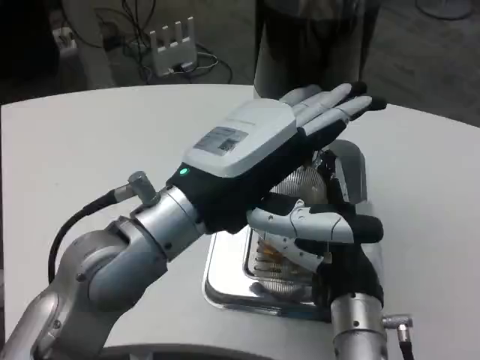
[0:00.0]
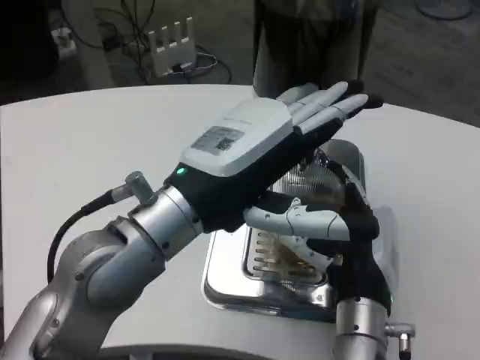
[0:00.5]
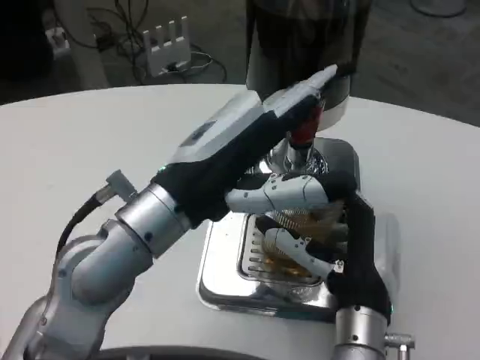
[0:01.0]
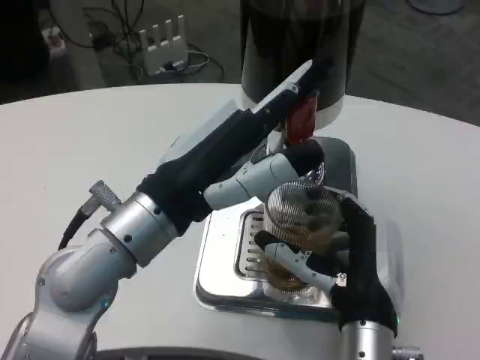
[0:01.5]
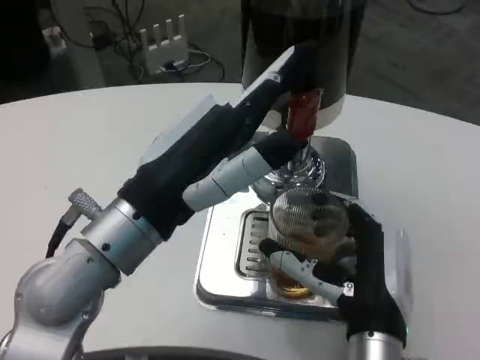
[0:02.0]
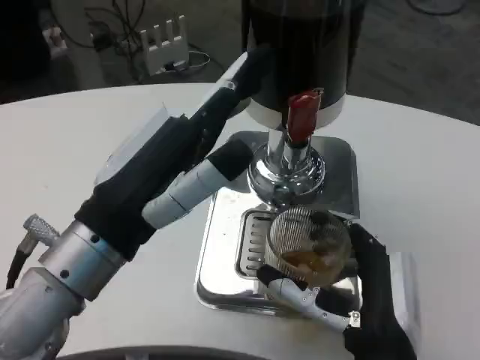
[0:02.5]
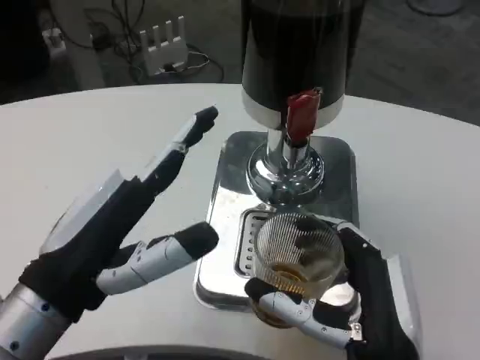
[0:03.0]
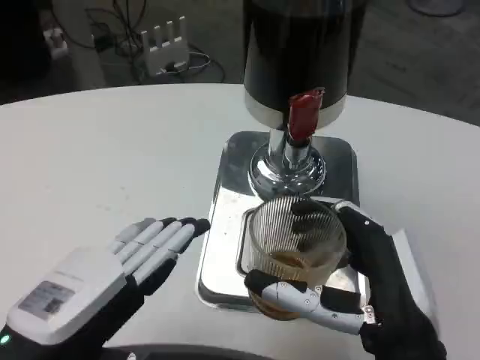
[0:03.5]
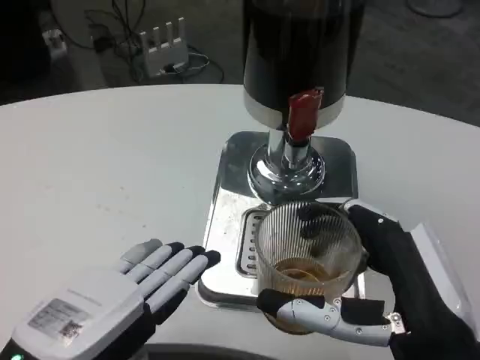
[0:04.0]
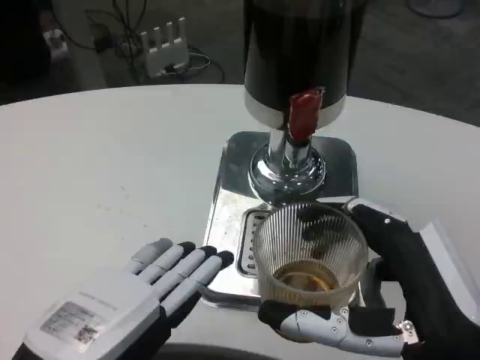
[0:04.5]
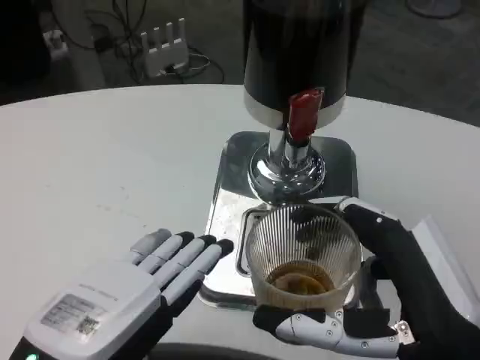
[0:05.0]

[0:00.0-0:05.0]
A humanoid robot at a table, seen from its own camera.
Task of the whole recording: Grasp the cup under the faucet to collect the drink, then remove the cup.
0.0 to 2.5 s: The right hand heads backward, covering about 5 cm, while the left hand heads to the left, covering roughly 5 cm.
2.5 to 5.0 s: The left hand heads backward, covering about 10 cm, while the right hand goes some 15 cm upward, backward and to the right.

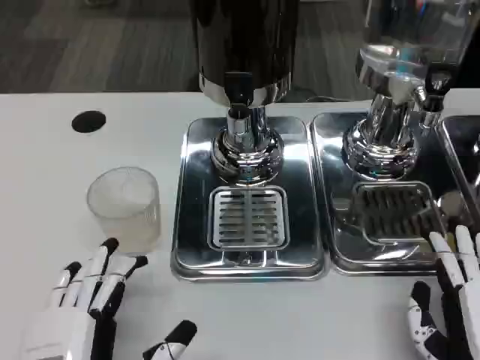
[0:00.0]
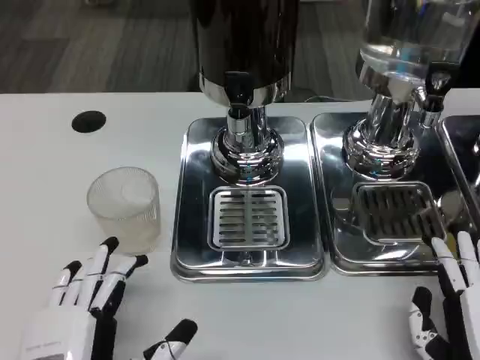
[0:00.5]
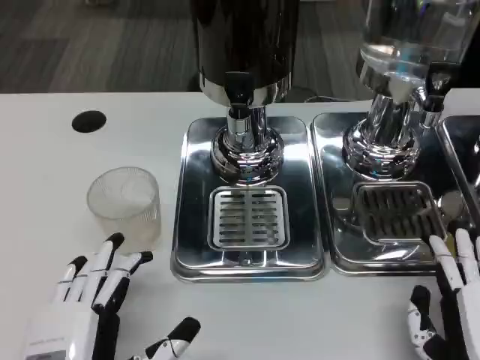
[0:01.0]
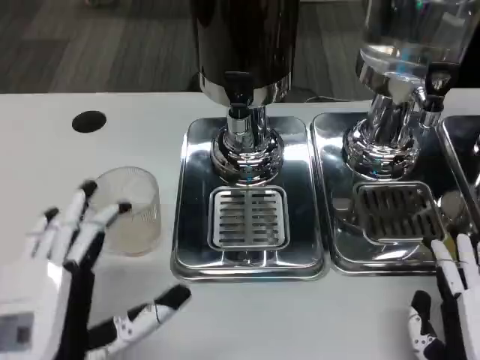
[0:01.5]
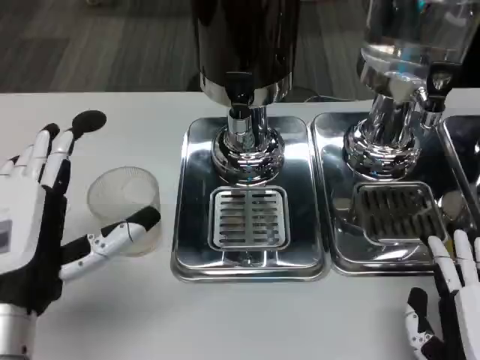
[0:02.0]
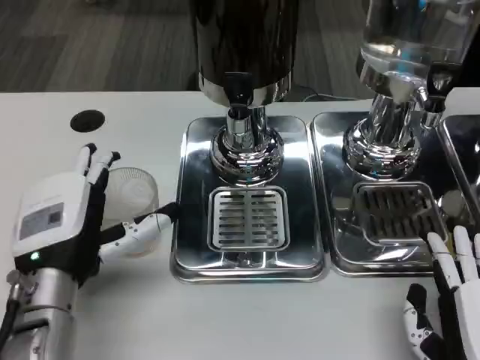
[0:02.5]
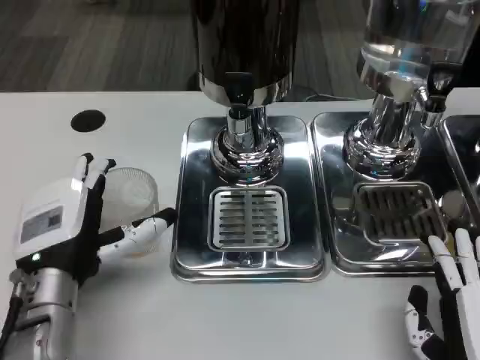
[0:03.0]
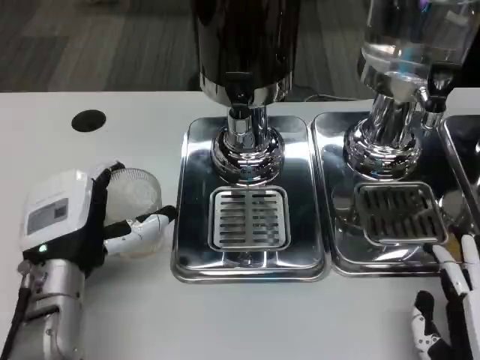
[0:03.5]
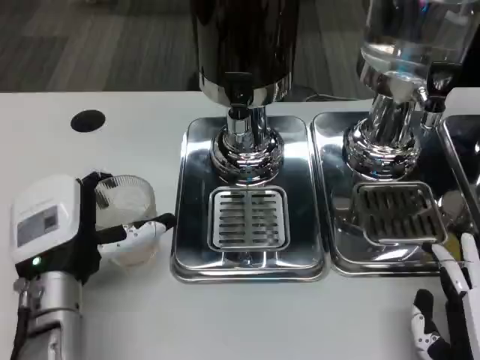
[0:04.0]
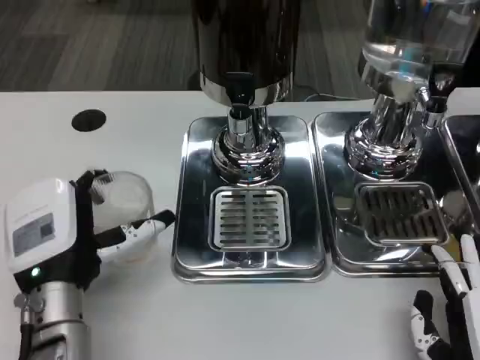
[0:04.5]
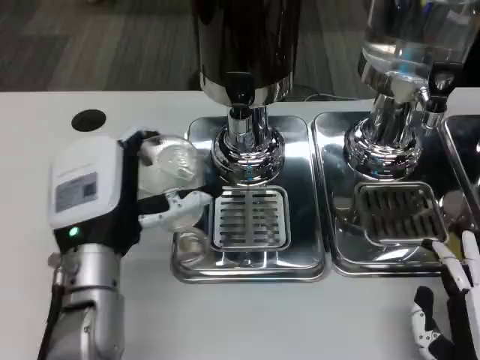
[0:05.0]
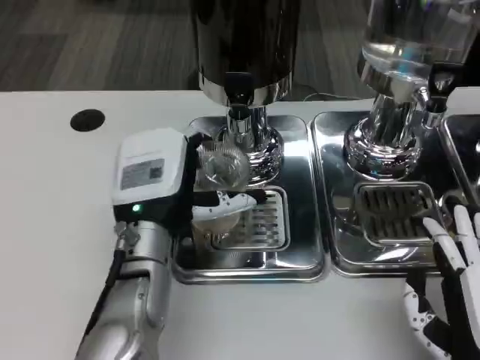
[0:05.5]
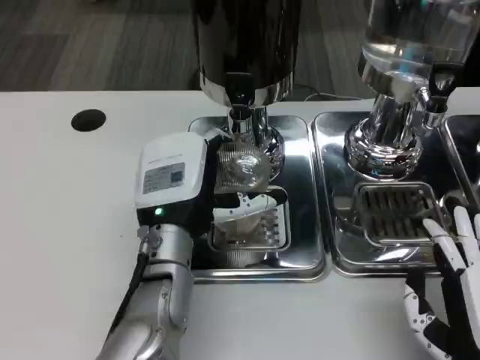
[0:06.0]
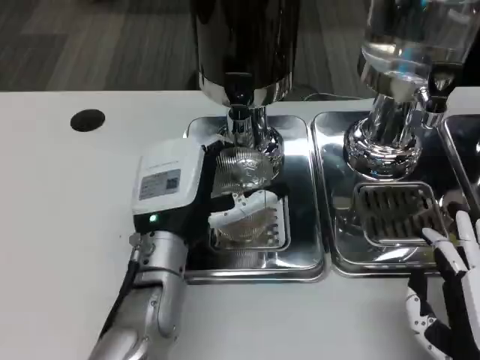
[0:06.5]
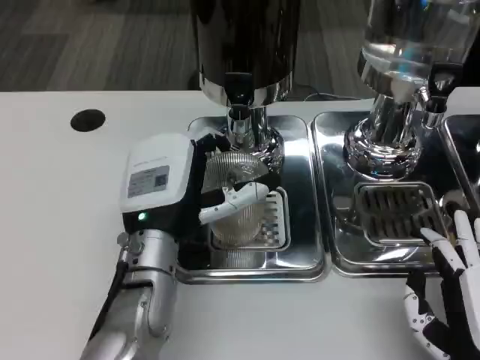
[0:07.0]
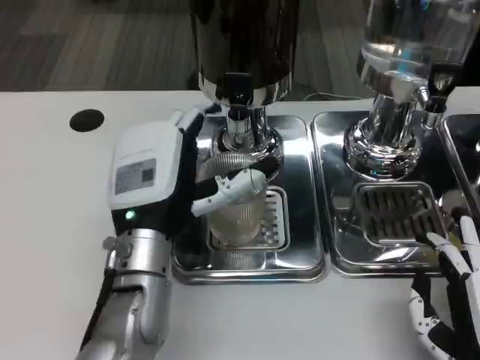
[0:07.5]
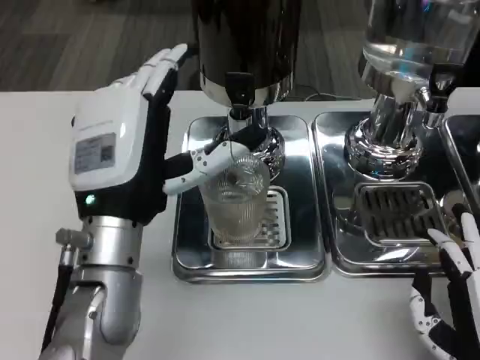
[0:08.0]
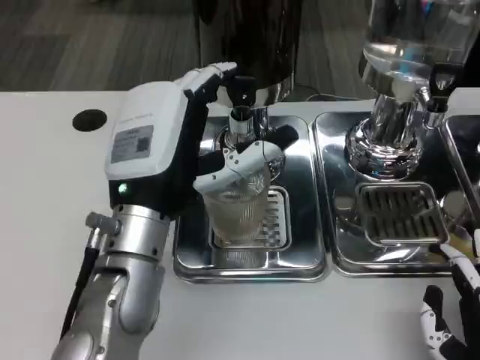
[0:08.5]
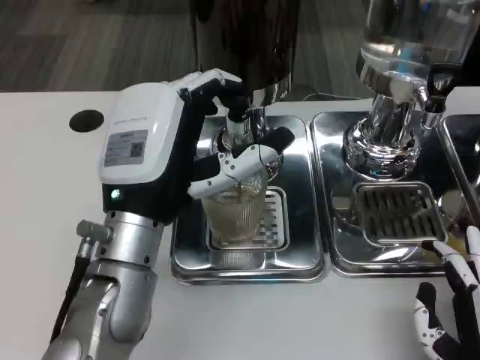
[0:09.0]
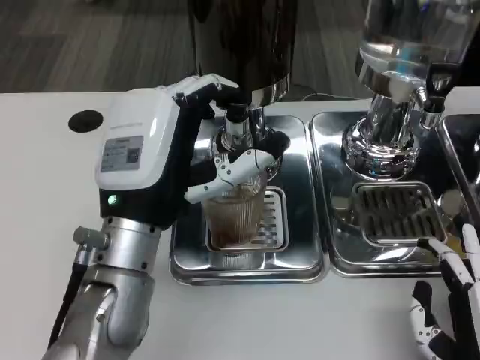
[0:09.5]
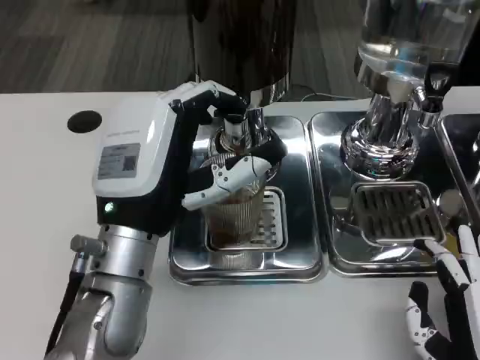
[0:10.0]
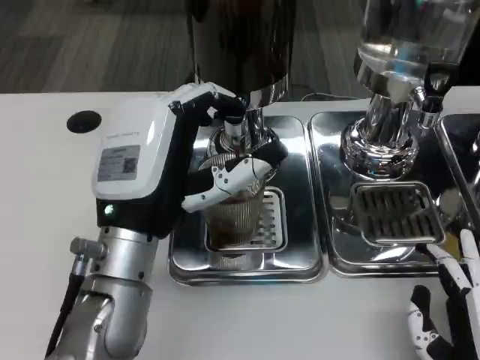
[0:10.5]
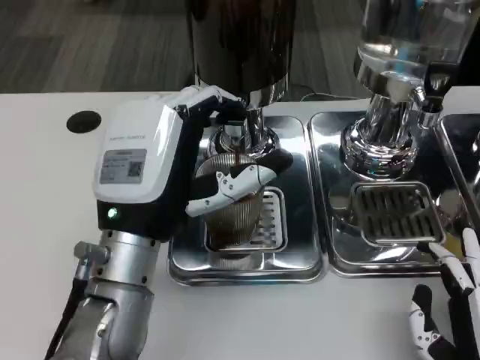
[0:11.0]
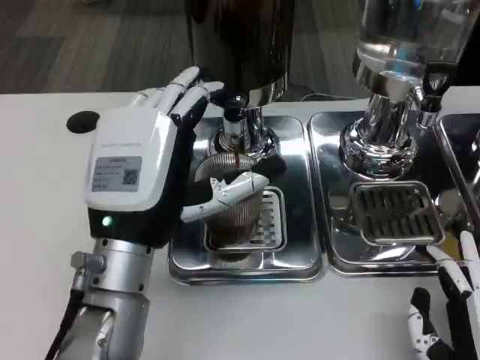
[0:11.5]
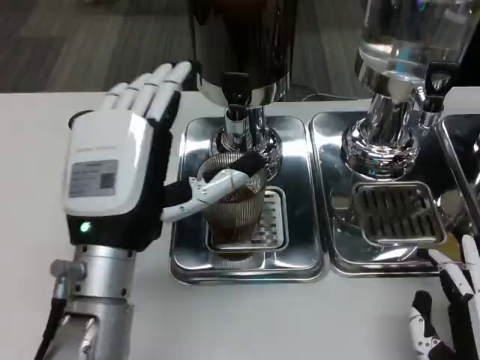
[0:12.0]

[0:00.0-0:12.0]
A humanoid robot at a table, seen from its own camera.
Task of the whole recording: Grasp the cup under the faucet to collect the drink, then remove the cup.
0.0 to 2.0 s: The left hand goes about 10 cm upward and forward.
2.0 to 4.0 s: The left hand goes approximately 5 cm forward.
4.0 to 6.0 s: The left hand shifts approximately 10 cm to the right.
6.0 to 8.0 s: The left hand goes roughly 5 cm upward.

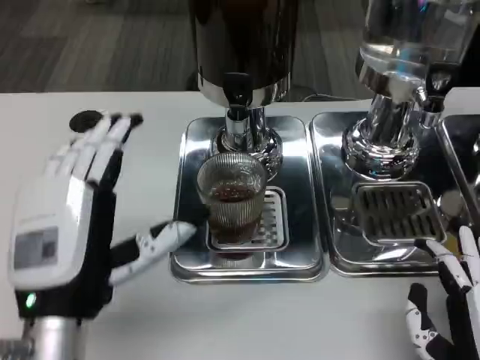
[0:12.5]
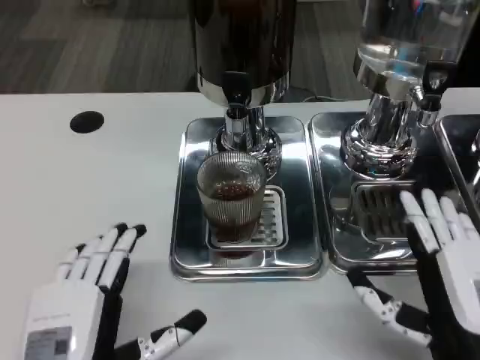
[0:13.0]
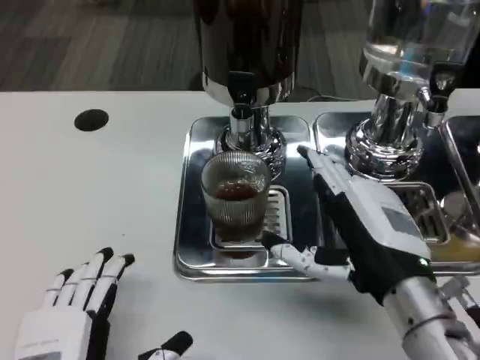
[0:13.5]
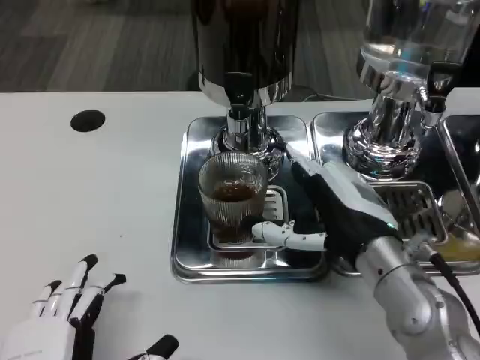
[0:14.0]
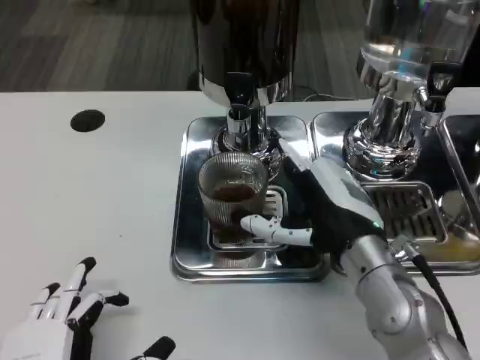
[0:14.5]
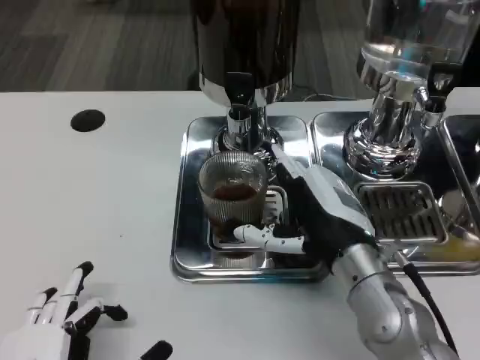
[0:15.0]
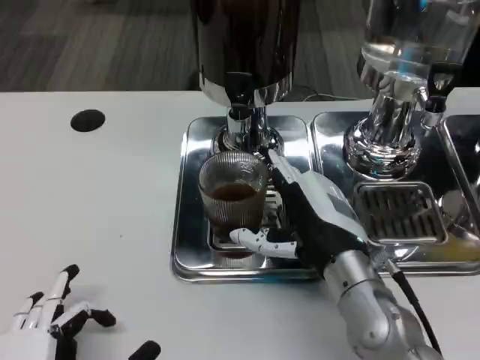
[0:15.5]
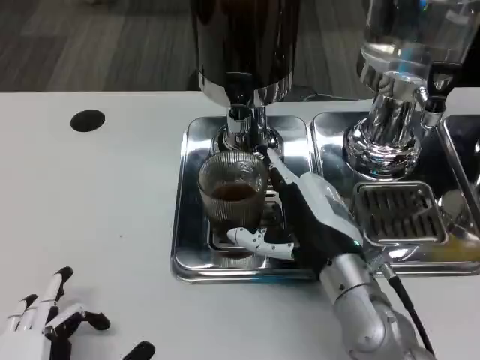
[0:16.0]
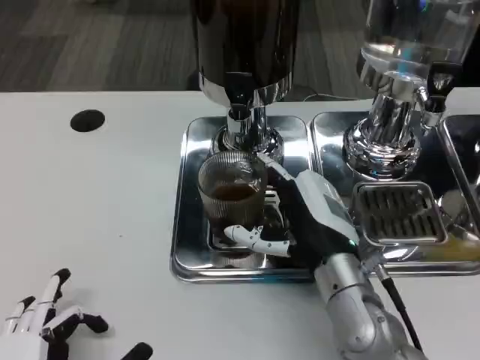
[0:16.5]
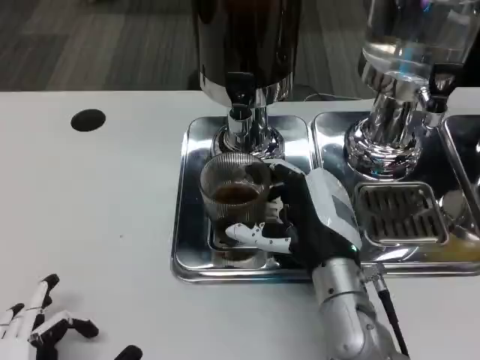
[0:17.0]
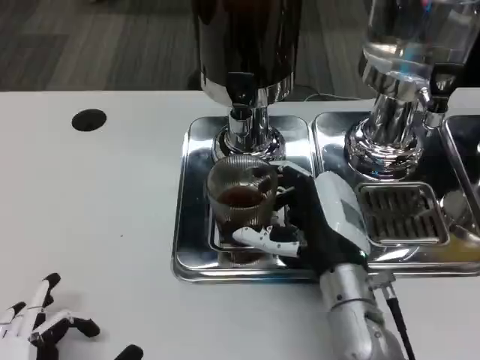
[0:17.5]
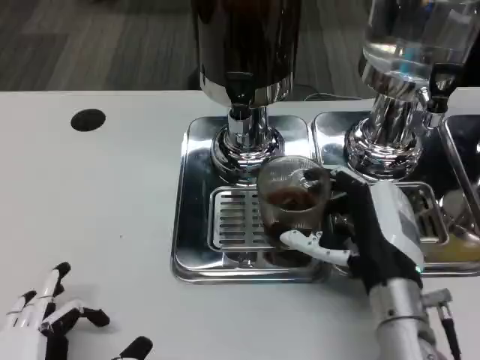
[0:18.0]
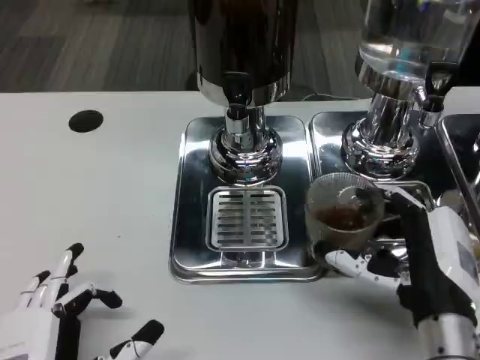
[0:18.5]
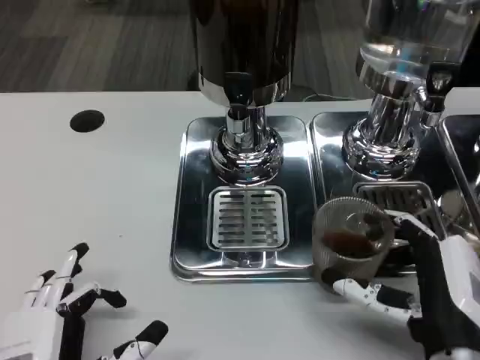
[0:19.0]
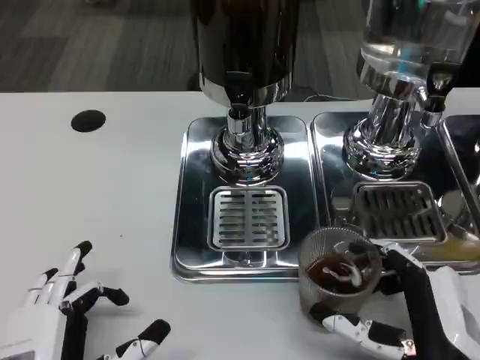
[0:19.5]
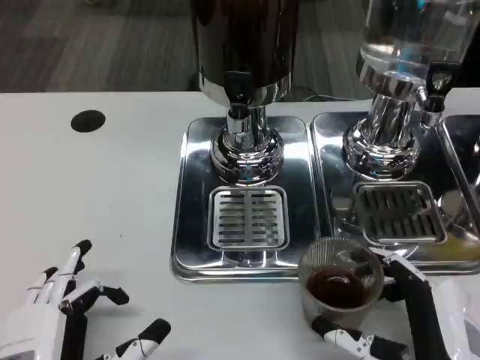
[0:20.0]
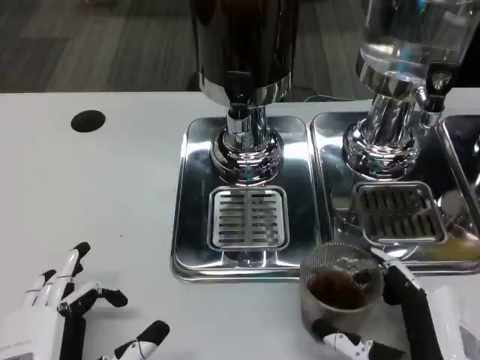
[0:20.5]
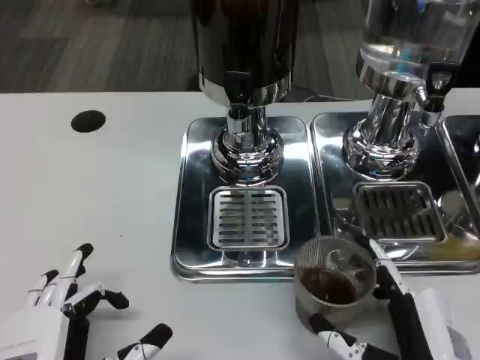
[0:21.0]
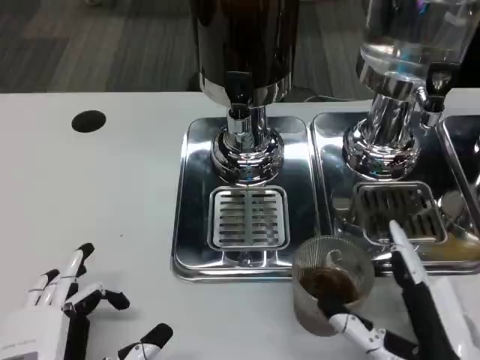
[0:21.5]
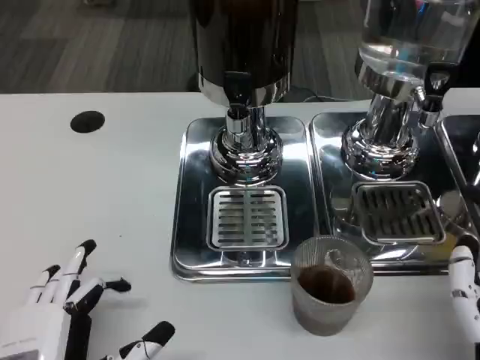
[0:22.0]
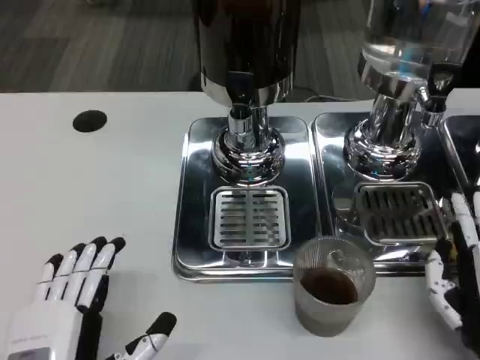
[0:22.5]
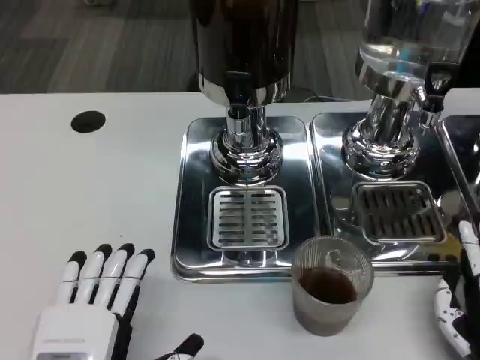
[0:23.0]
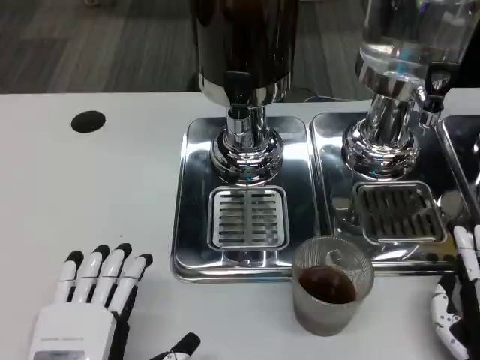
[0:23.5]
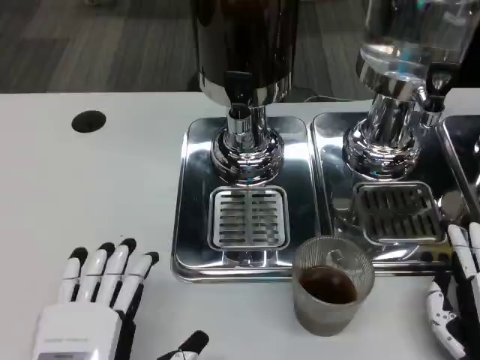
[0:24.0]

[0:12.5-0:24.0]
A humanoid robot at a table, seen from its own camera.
Task of the whole recording: Grasp the cup under the faucet to collect the drink, then remove the cup.
12.5 to 14.5 s: The left hand moves downward and backward, approximately 10 cm. Meanwhile the right hand is displaced forward, to the left and upward by some 20 cm.
14.5 to 16.5 s: The hands make only small movements.
16.5 to 18.5 s: The right hand shifts roughly 10 cm backward and to the right.
18.5 to 20.0 s: The right hand moves backward, roughly 5 cm.
20.0 to 22.0 s: The hands move only a little.
22.0 to 24.0 s: The right hand goes some 5 cm downward.
